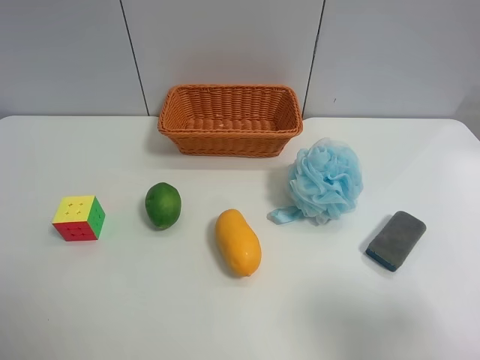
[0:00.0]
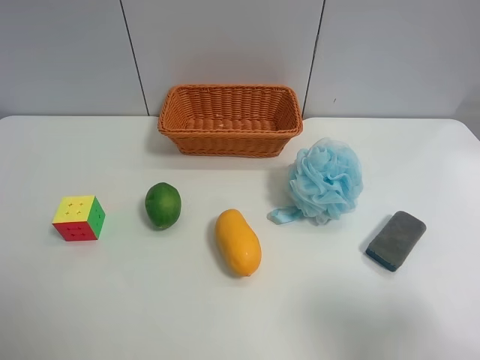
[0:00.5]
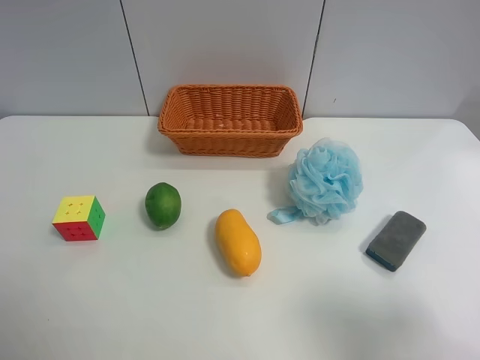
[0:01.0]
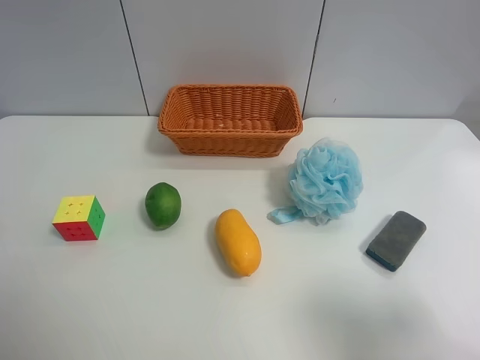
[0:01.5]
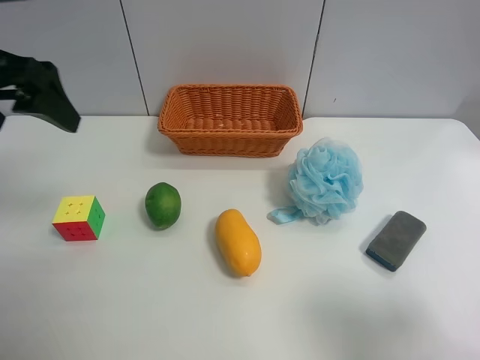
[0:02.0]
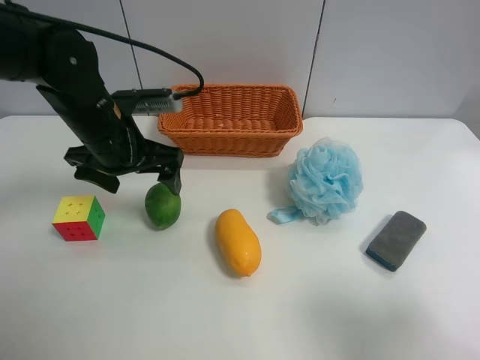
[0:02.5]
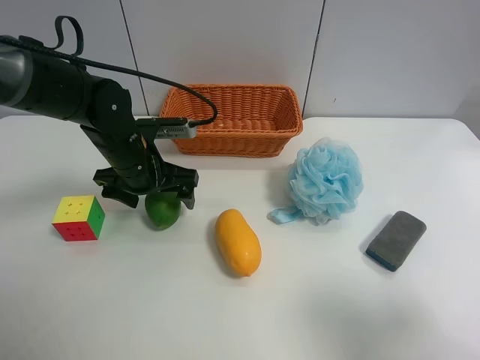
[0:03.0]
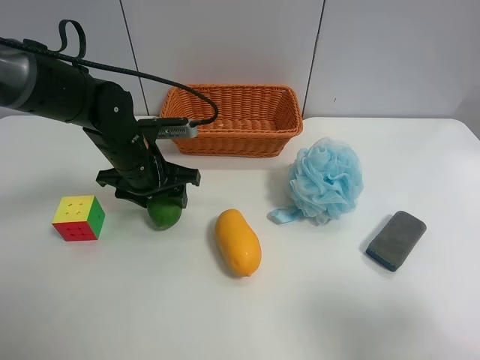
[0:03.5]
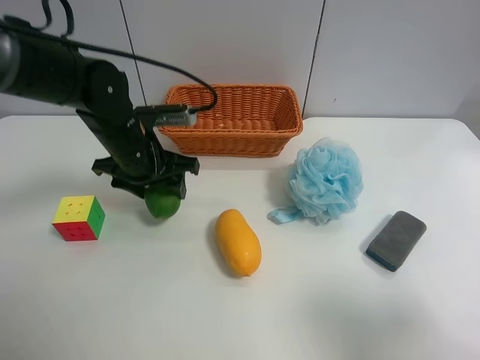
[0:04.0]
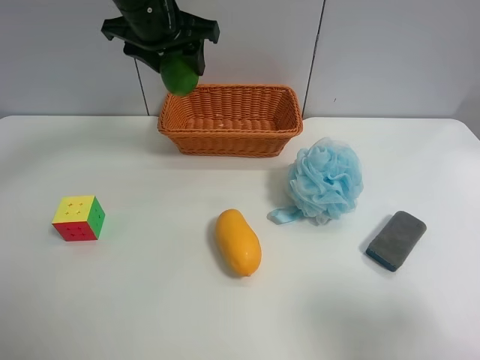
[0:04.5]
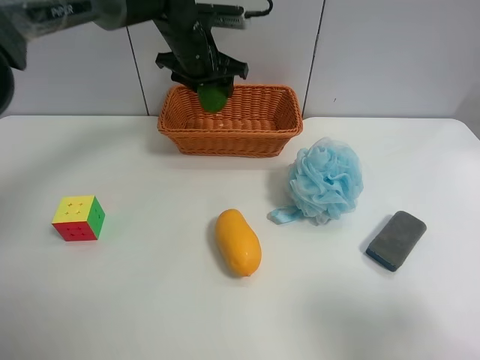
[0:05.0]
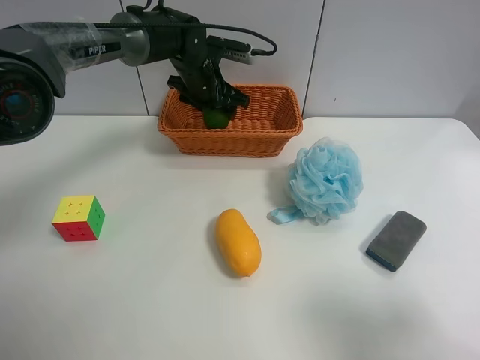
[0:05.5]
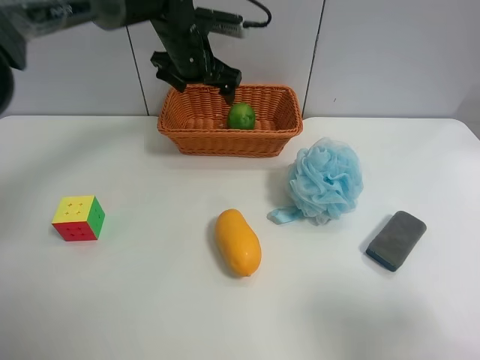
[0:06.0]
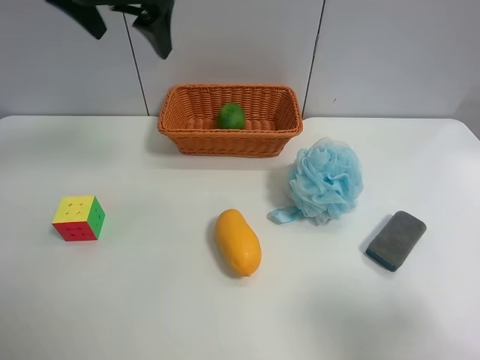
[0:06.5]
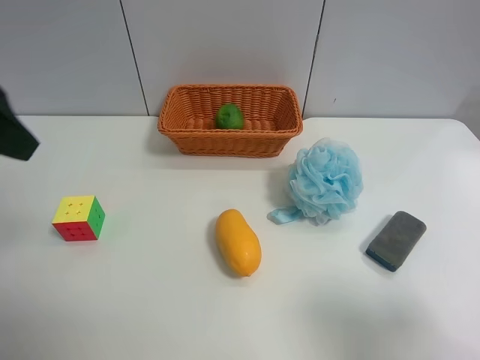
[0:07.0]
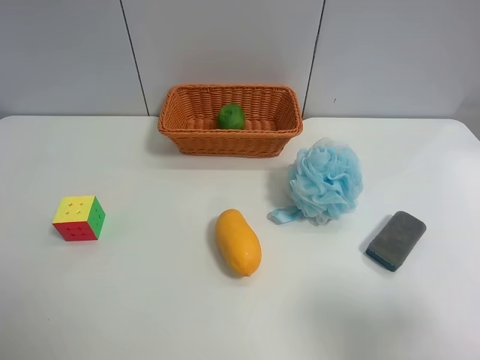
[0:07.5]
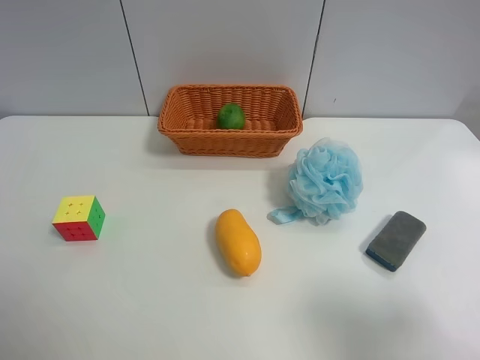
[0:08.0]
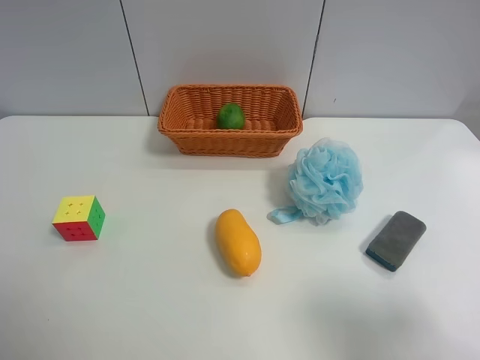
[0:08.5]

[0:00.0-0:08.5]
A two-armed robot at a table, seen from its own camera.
Task of the whole recording: use the left gripper to grab items from the table and place them in the basket.
Step, 0:00.0 to 0:03.0: Grasp the apple rubber puff with the left gripper.
Step, 0:03.5 to 0:05.5: Place the apple rubber puff into the basket with the left gripper.
0:00.0 to 0:02.0: The left gripper goes about 25 cm forward.
0:02.0 to 0:04.0: The left gripper moves downward, to the right and forward, approximately 20 cm, and closes.
0:04.0 to 0:06.5: The left gripper moves up and down over approximately 20 cm, changing direction 2 times, and opens.
0:06.5 to 0:08.5: The left gripper travels backward and to the left by approximately 40 cm.
